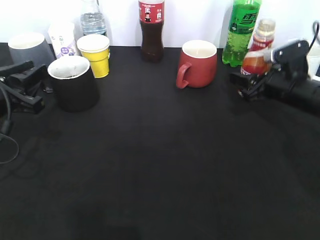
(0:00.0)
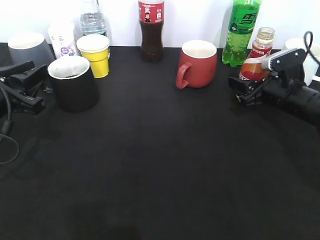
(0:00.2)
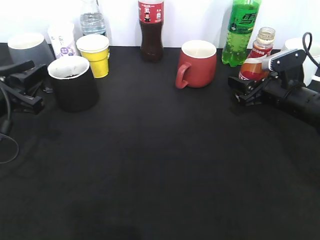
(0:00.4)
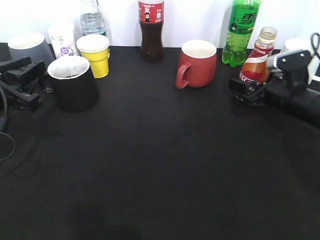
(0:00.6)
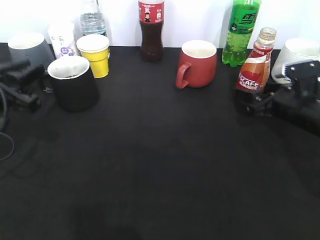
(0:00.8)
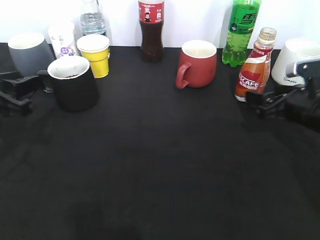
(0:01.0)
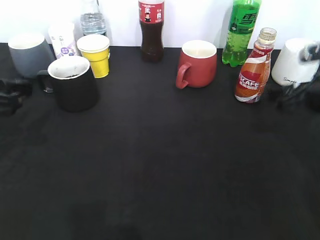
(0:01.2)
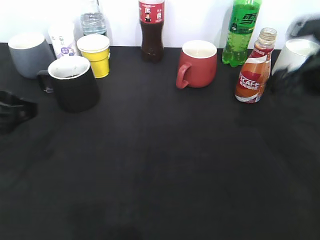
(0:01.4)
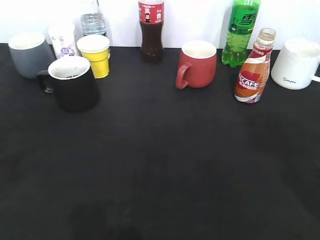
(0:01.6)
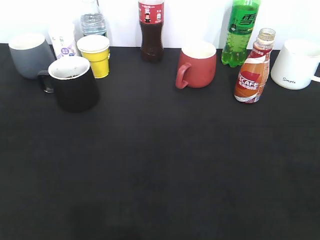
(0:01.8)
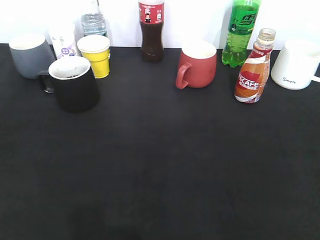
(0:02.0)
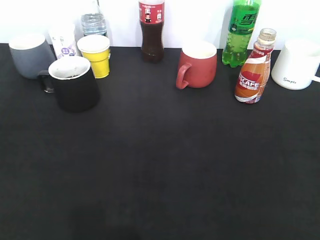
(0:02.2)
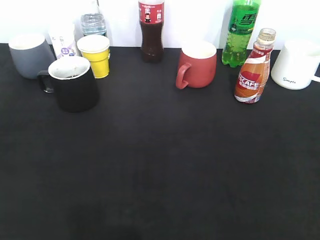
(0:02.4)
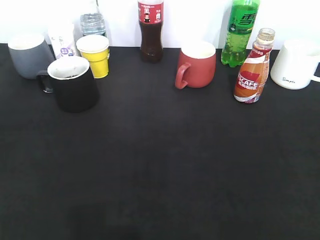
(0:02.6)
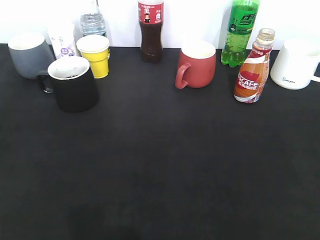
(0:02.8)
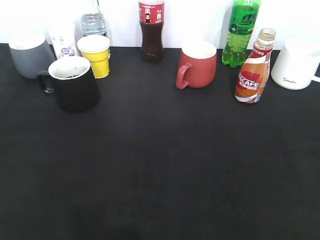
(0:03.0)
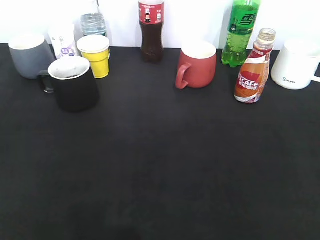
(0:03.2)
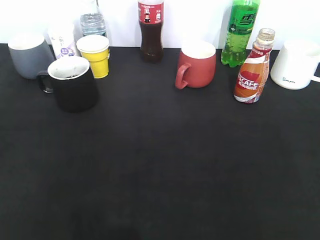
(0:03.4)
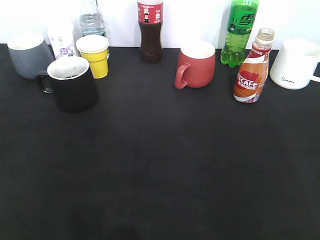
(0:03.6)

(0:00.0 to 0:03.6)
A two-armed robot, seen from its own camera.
Step, 0:00.0 - 0:00.8: Place the coffee bottle on the table with right gripper.
0:00.0 - 0:01.8: Both grippers move backward and upward, about 30 cm. The left gripper opens; the right gripper opens its fingers.
0:01.8 - 0:03.6: The left gripper shifts by some 5 cm, while the right gripper heads backward, covering roughly 5 cm.
